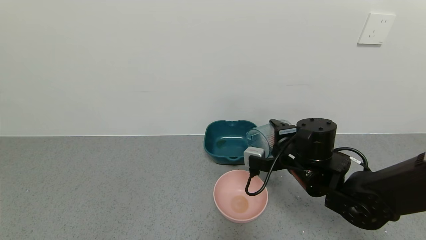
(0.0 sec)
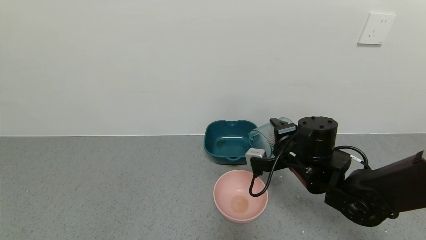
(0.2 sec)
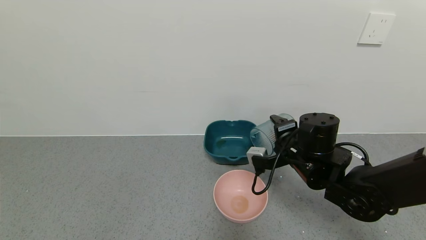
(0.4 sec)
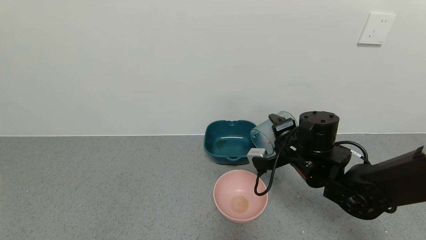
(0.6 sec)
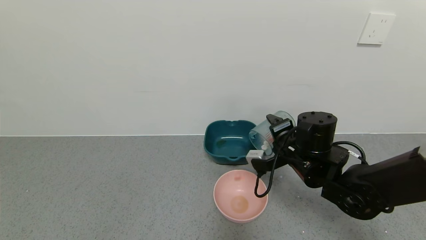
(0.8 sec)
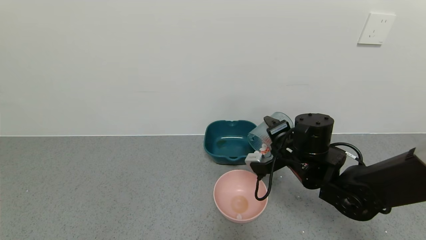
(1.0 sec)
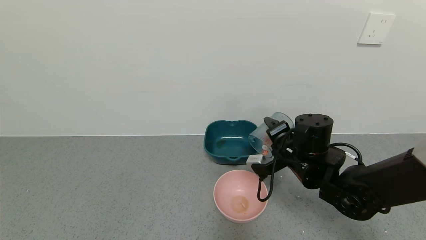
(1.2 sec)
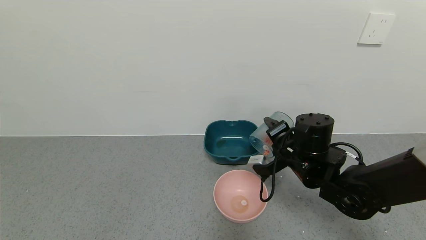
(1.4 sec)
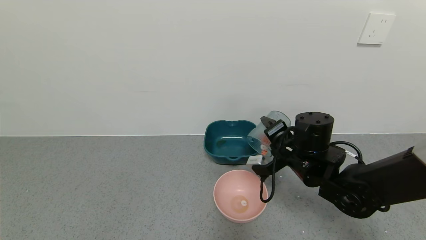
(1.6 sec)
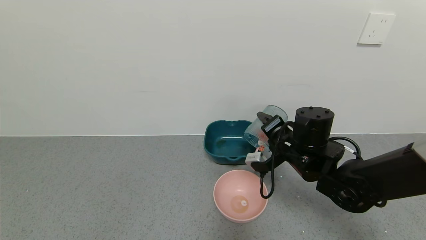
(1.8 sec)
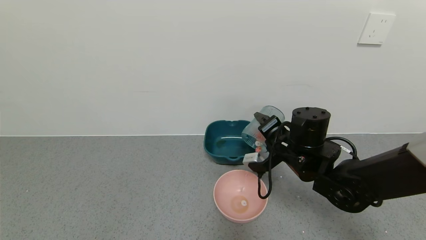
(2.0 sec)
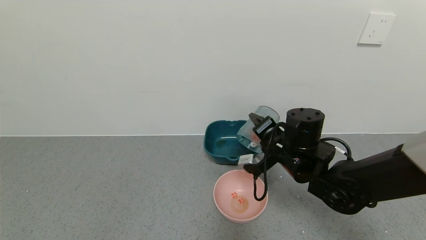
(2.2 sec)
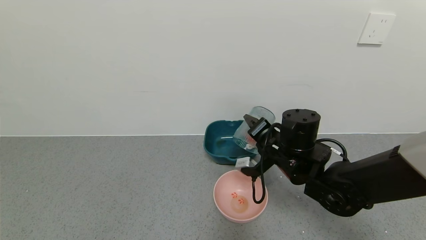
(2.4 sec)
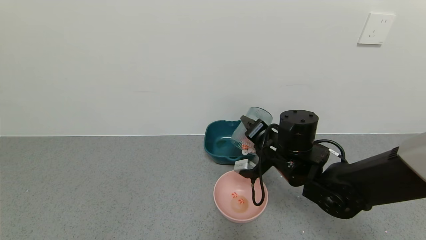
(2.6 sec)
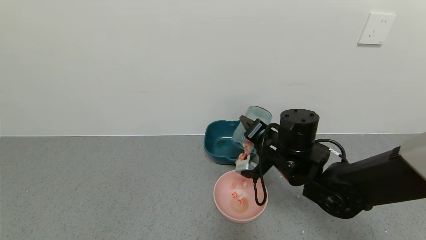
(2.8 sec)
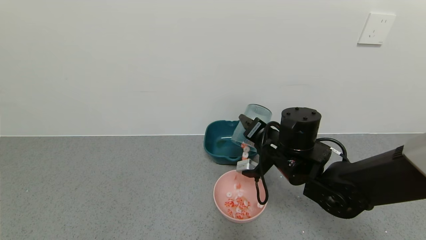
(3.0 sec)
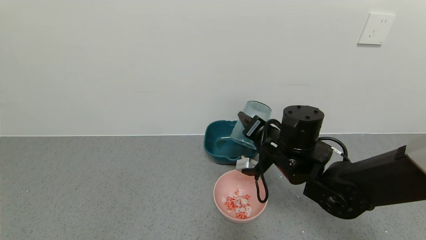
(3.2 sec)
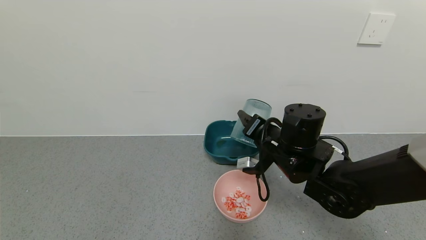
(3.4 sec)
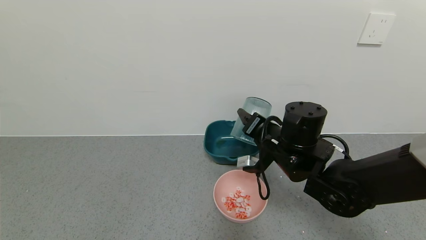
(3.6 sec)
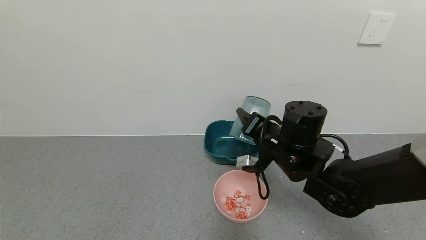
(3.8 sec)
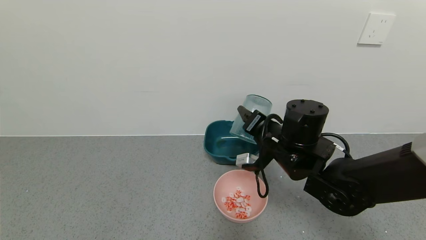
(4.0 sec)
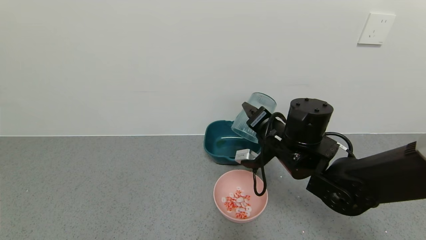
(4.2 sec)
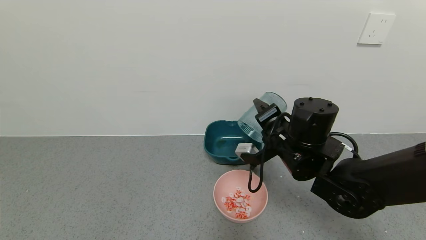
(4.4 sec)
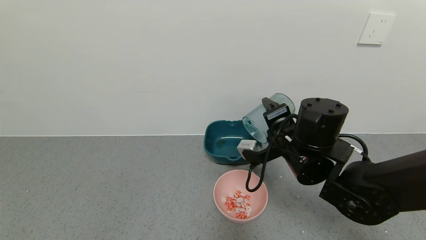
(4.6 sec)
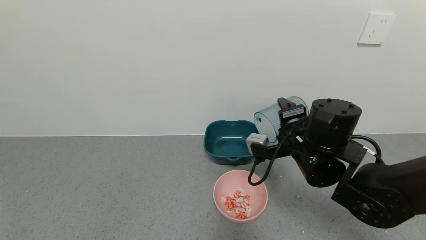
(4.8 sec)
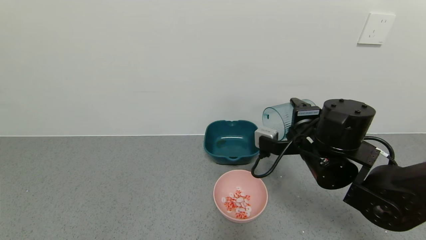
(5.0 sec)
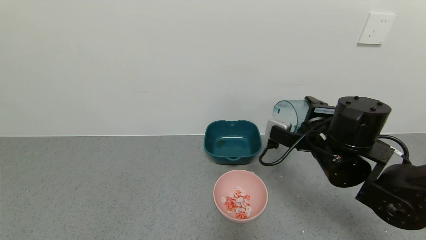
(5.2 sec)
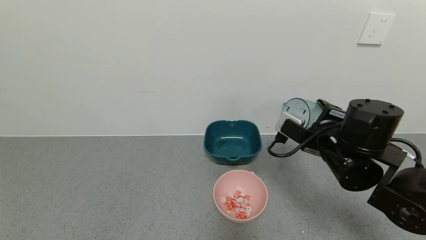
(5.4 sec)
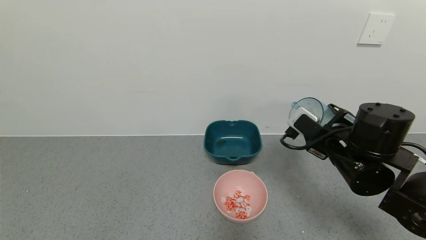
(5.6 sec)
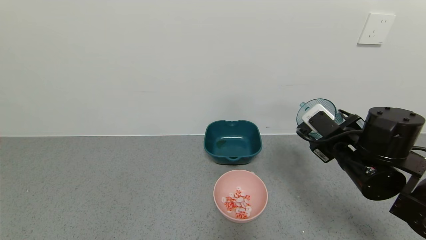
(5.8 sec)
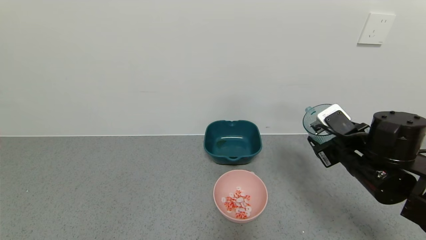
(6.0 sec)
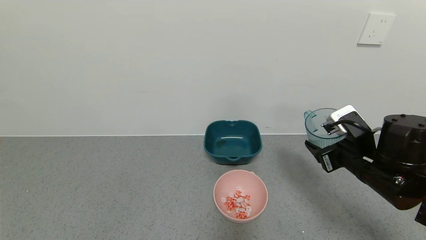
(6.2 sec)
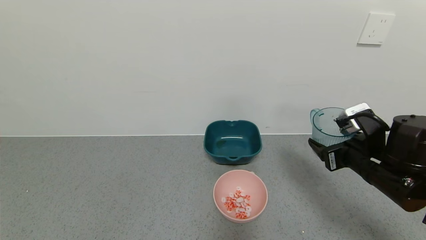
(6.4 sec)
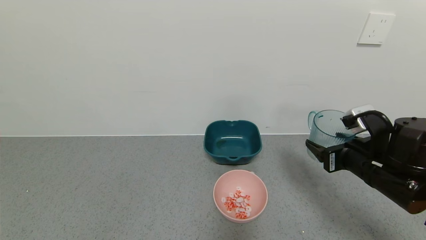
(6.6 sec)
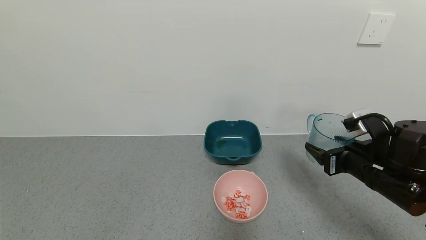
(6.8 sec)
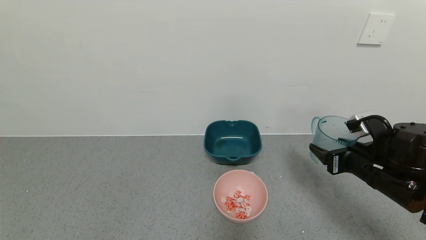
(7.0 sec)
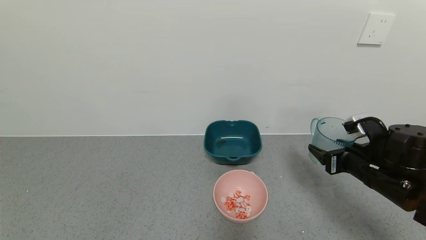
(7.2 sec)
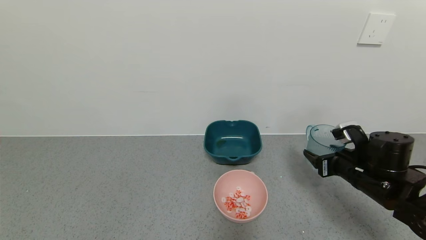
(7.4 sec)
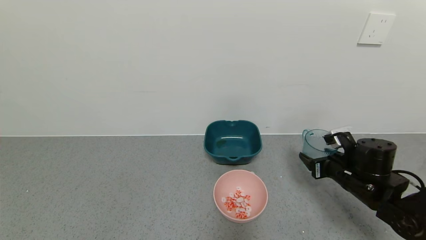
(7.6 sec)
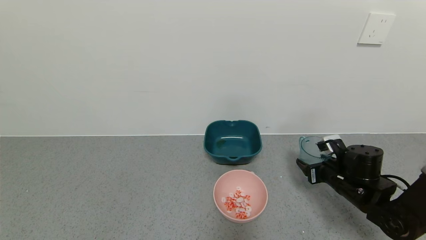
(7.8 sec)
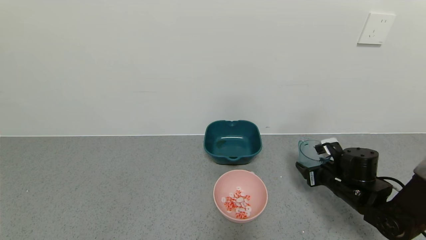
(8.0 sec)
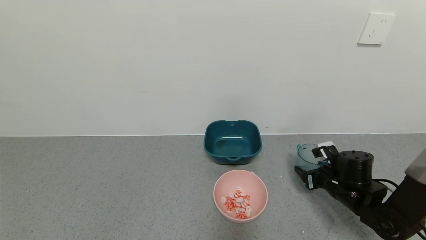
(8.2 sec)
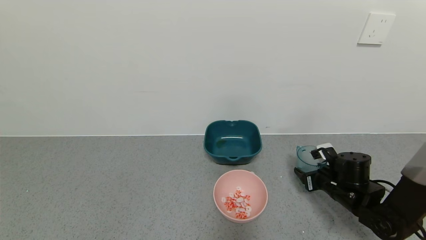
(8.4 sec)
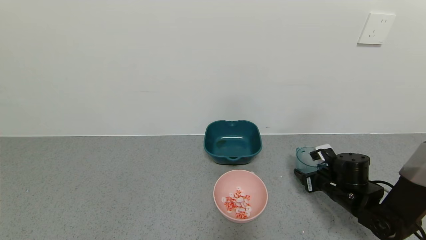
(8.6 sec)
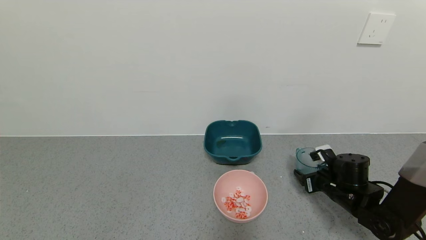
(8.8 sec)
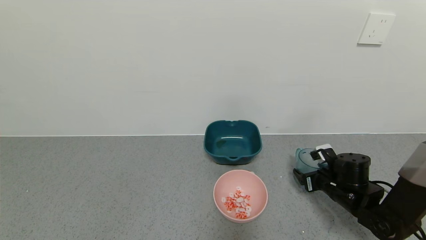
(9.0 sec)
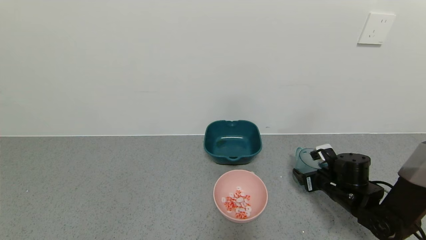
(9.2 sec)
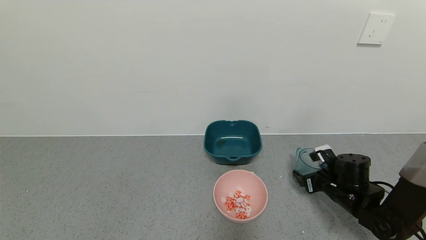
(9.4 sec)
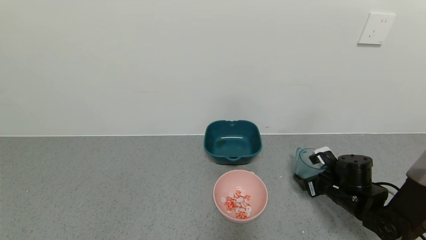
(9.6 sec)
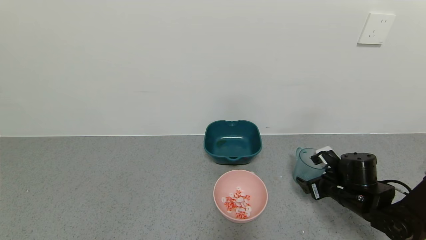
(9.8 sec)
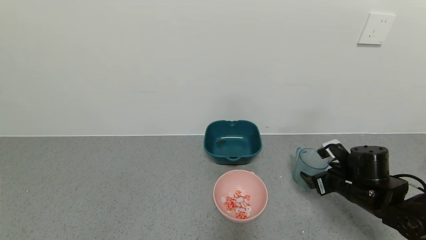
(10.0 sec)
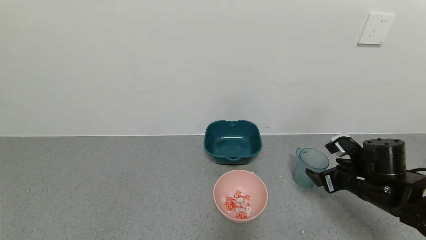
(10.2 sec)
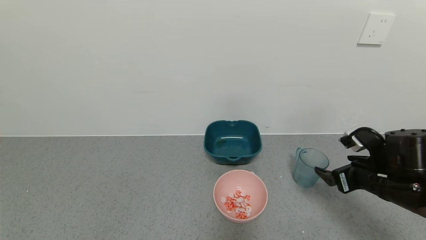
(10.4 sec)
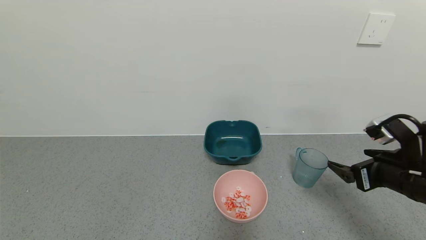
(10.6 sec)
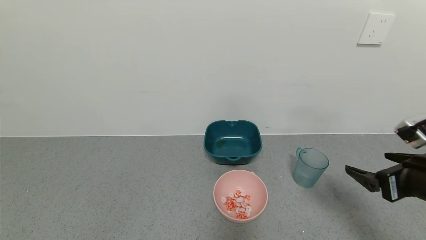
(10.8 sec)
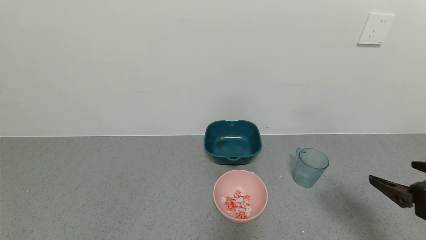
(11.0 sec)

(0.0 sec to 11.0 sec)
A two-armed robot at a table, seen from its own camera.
Task of the whole recording: use a gripper to pick up the cup and pour the solid into a bowl or tray.
Step, 0.0 sec - 4.6 sec: Pour the shrimp into the pink bowl with the right gripper.
Step, 4.8 sec - 9.8 sec: Place the glass cup with the right gripper.
4.8 sec - 6.2 sec: The right gripper travels to the right by roughly 10 cm.
6.2 sec - 7.8 sec: The right gripper moves downward and forward, about 10 cm.
7.8 sec - 9.4 sec: The right gripper opens its fingers.
9.4 sec - 11.0 sec: The right gripper heads backward and upward, covering some 25 cm.

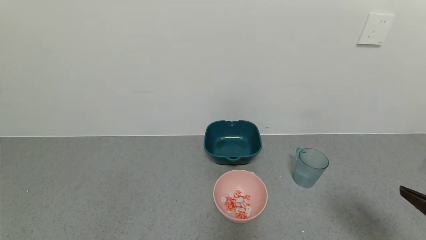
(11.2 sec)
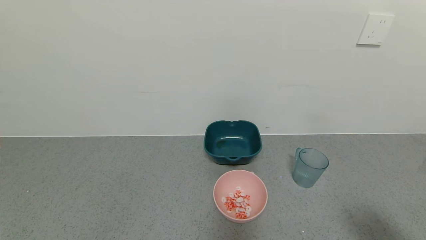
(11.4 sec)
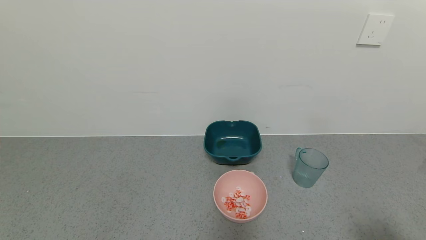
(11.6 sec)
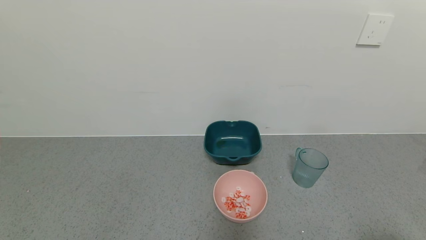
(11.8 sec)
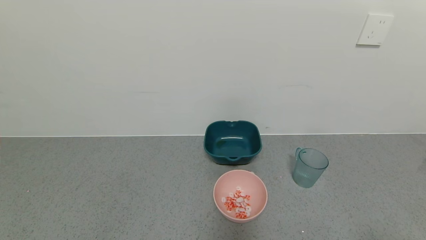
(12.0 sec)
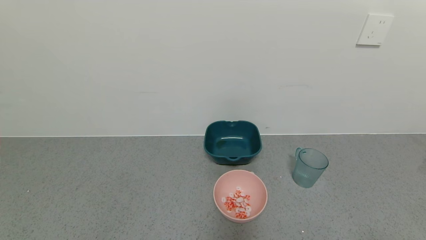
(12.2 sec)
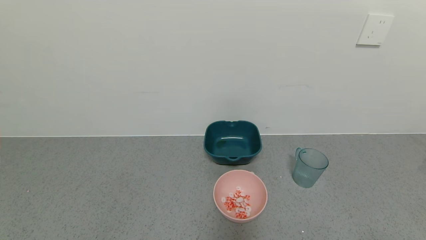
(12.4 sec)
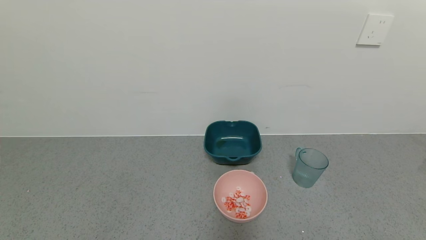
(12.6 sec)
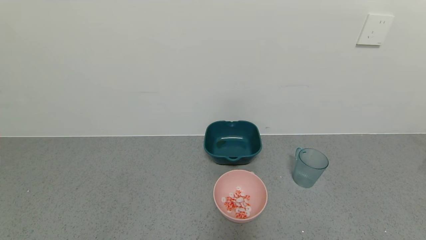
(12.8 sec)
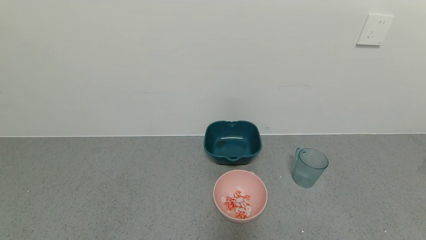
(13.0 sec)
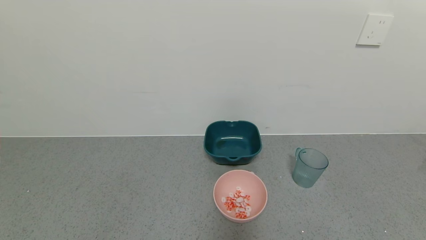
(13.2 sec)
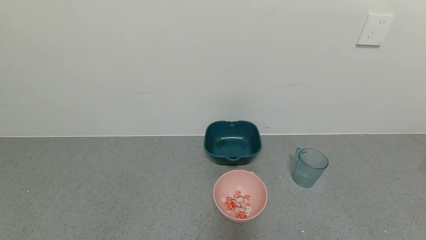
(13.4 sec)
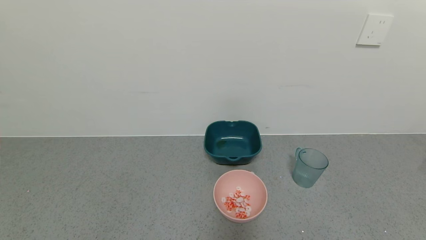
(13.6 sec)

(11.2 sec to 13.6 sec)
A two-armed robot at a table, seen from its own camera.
Task of the whole recording: use a gripper to pick up the cup and pour the solid into a bowl or tray.
11.2 sec - 12.4 sec: The right gripper goes some 15 cm backward and downward.
